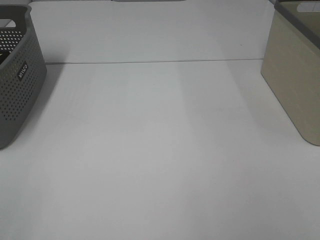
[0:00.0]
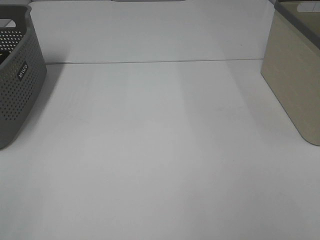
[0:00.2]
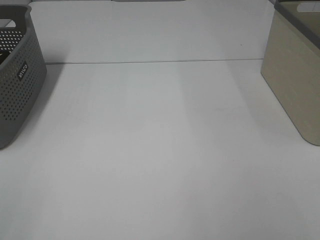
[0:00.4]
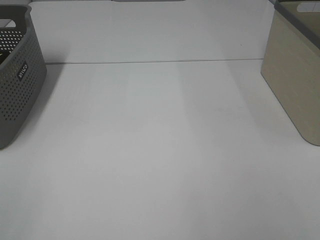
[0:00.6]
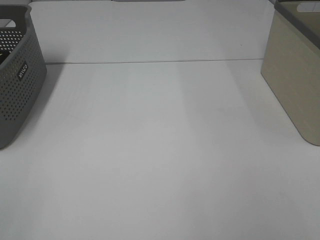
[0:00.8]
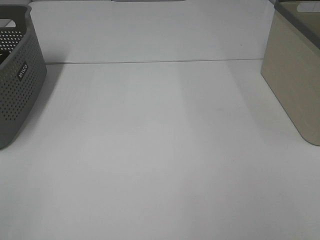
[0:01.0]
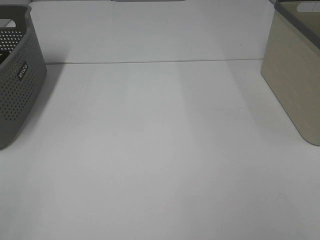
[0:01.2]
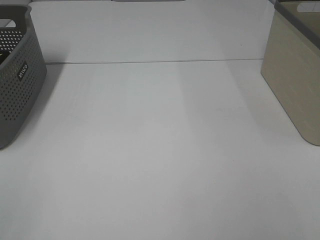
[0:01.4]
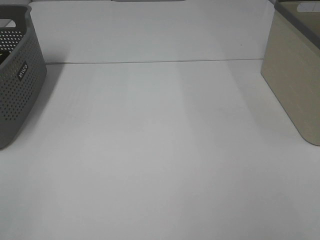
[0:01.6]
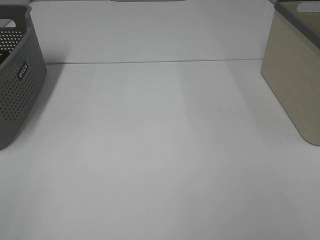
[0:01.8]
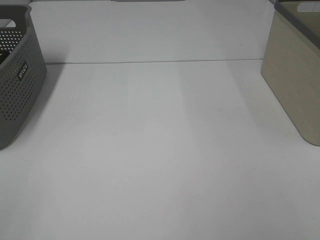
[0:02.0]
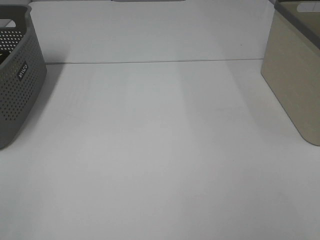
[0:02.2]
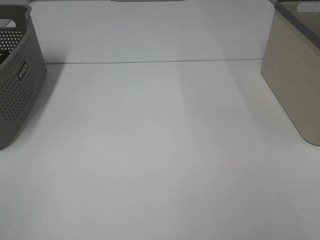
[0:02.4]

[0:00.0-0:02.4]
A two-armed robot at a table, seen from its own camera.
0:01.2 to 0:02.4: Both grippers stay about where they are.

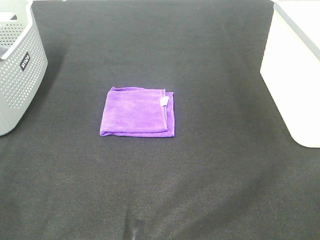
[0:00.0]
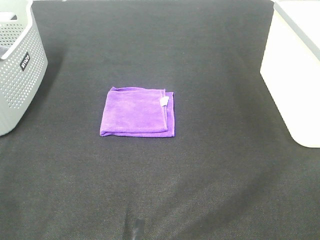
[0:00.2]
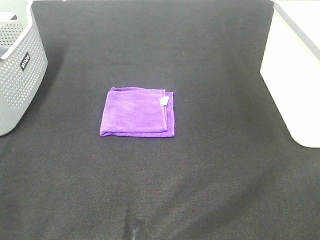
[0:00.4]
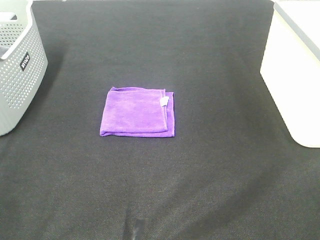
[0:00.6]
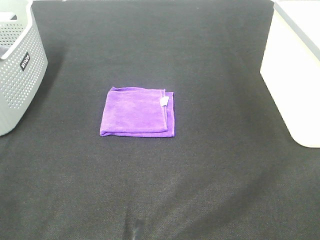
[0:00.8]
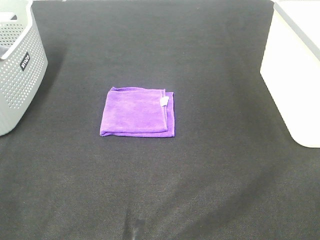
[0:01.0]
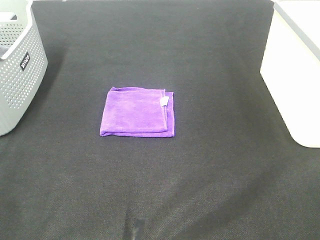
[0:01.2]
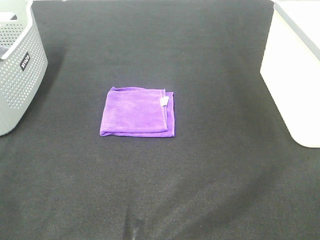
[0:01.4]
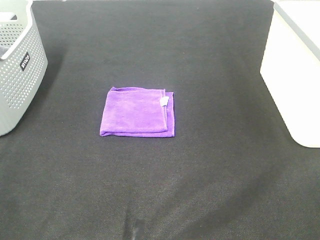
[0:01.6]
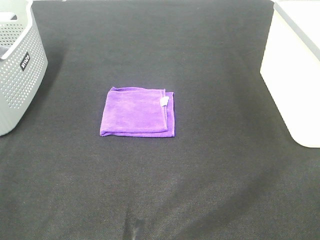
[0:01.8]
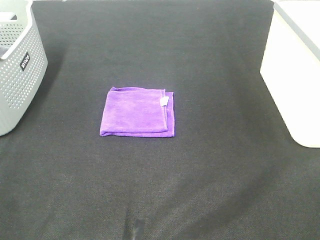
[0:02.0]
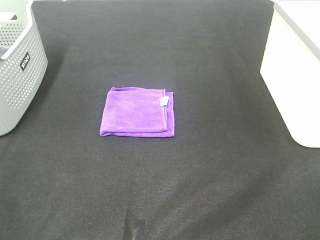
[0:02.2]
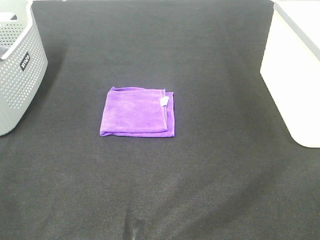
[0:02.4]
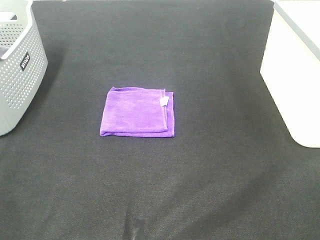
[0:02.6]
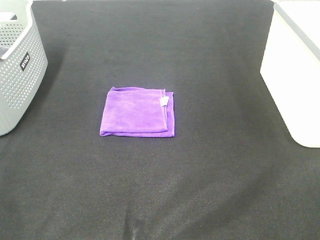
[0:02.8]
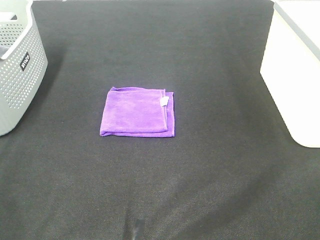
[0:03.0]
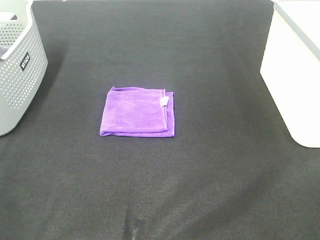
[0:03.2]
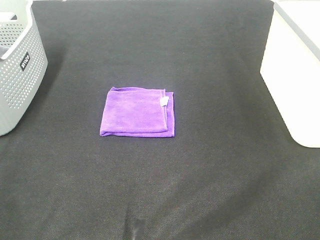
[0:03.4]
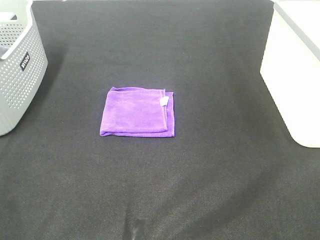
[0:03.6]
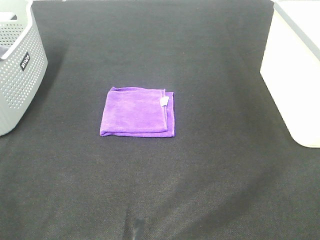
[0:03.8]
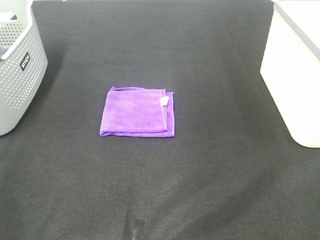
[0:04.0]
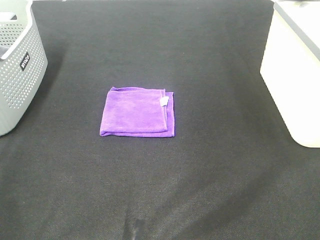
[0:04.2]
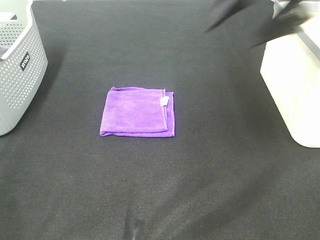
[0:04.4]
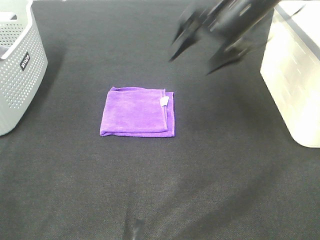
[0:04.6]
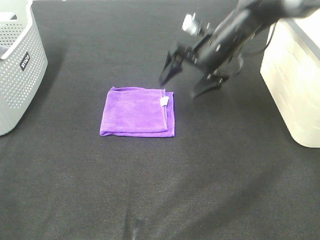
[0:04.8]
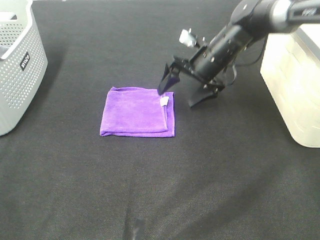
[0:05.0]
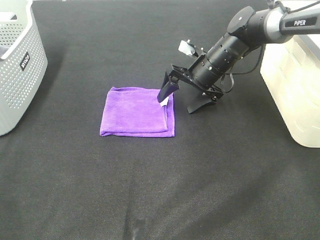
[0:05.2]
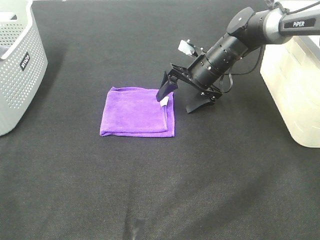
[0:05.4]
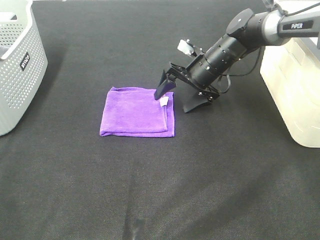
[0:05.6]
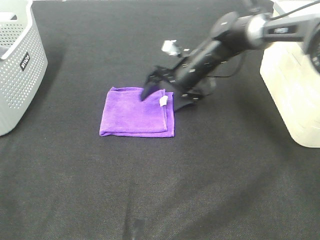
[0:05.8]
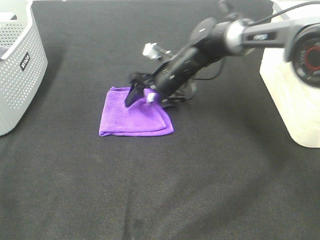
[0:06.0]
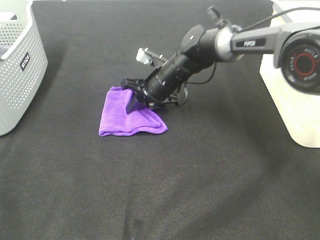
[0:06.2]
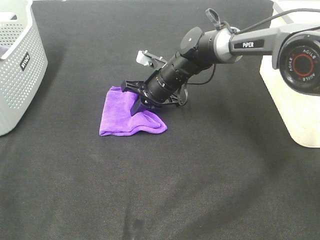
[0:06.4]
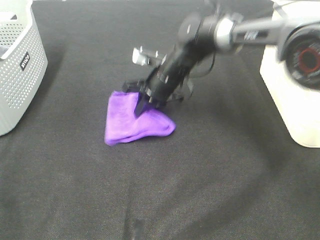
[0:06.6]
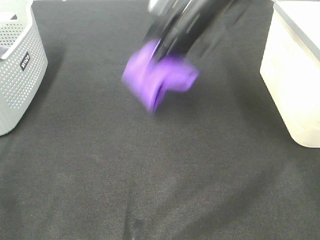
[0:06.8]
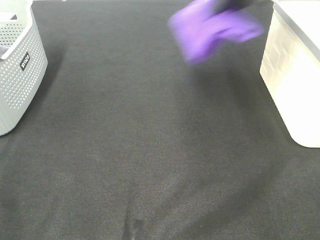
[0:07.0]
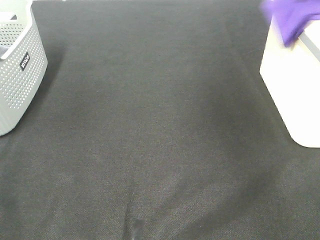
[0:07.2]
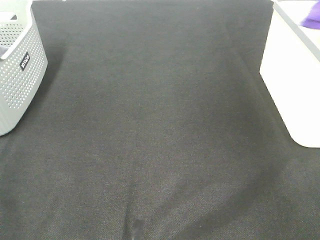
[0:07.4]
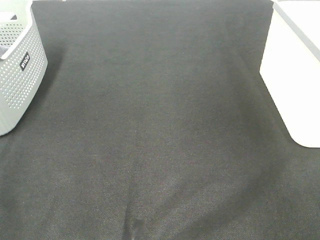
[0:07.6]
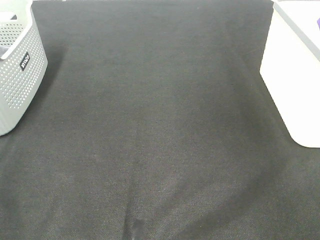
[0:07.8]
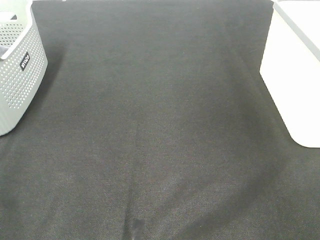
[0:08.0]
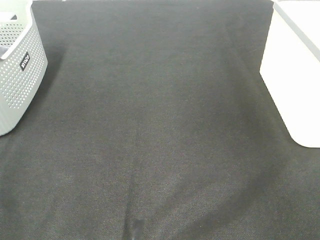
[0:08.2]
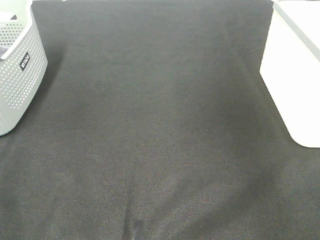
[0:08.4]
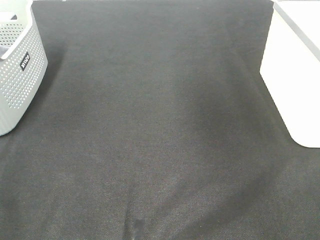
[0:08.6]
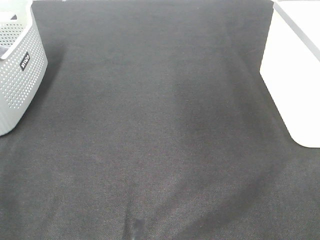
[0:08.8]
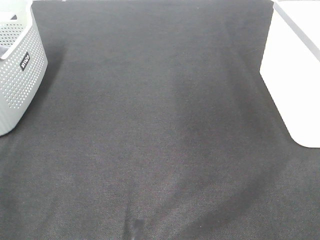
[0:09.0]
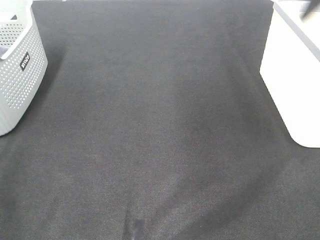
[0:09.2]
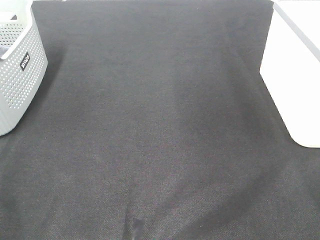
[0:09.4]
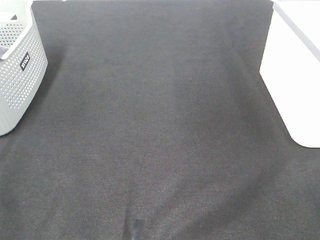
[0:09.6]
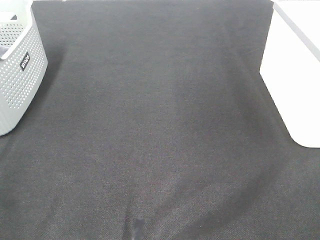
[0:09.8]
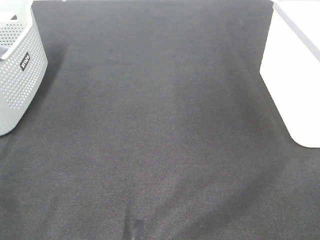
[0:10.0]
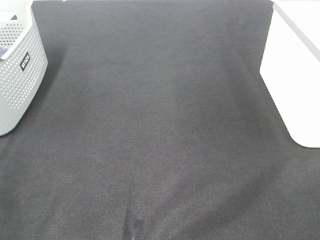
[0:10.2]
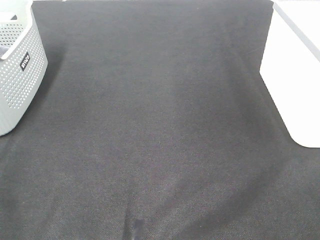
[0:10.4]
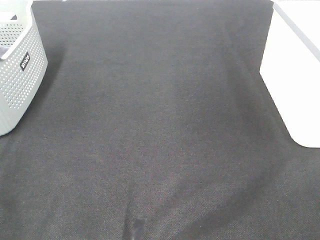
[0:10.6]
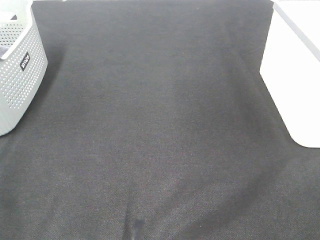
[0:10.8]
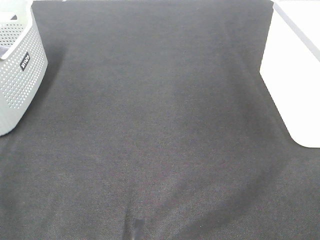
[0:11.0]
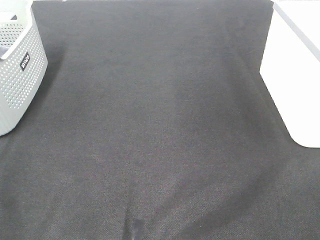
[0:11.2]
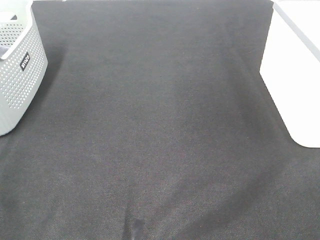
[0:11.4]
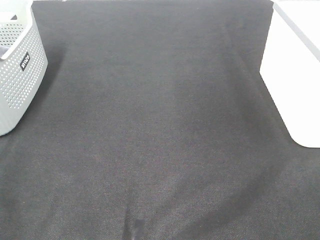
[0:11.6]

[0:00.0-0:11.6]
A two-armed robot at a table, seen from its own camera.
Step, 0:00.0 to 0:06.2: Right hand: grab the folded purple towel.
Step, 0:06.4 to 0:08.0: Right hand: place the purple towel in right basket.
0:00.0 to 0:02.8: Neither gripper changes place.
0:02.8 to 0:04.4: The right gripper moves forward, some 35 cm.
0:04.4 to 0:05.8: The right gripper is displaced downward, to the left and forward by roughly 25 cm.
0:05.8 to 0:07.2: The right gripper travels upward and to the right by roughly 35 cm, and closes.
0:07.2 to 0:08.8: The right gripper travels to the left and upward by some 10 cm, and opens up.

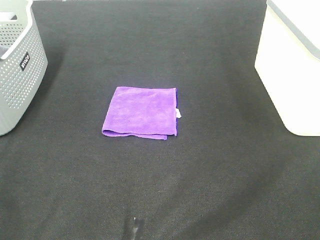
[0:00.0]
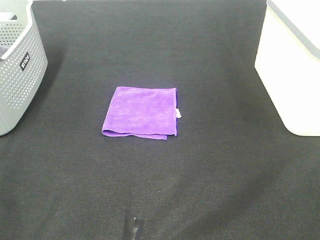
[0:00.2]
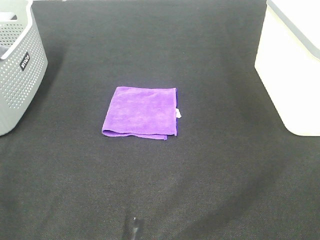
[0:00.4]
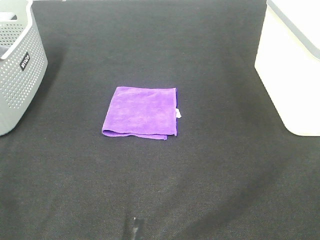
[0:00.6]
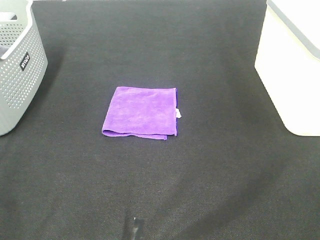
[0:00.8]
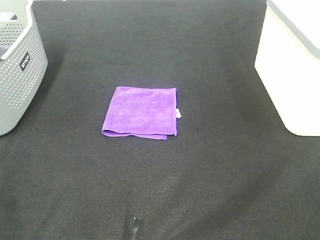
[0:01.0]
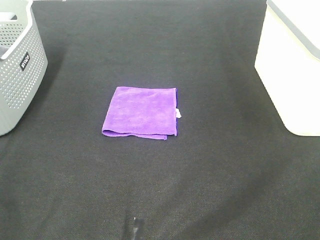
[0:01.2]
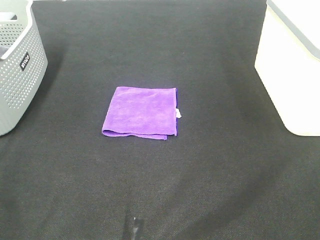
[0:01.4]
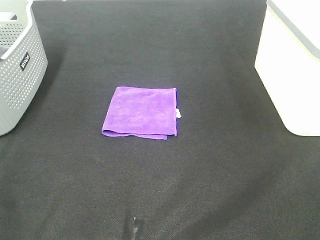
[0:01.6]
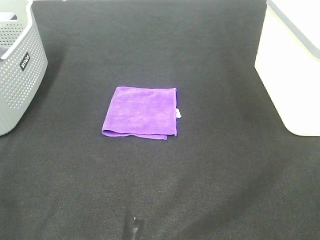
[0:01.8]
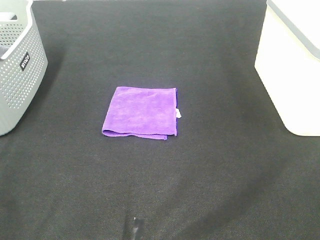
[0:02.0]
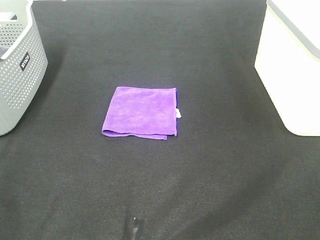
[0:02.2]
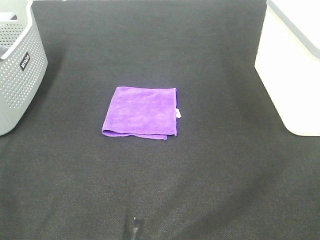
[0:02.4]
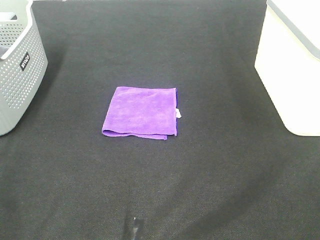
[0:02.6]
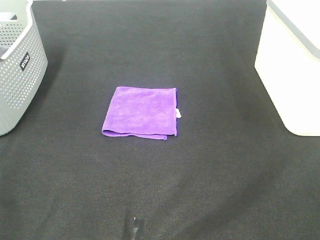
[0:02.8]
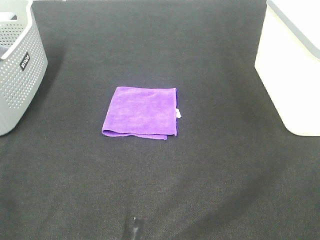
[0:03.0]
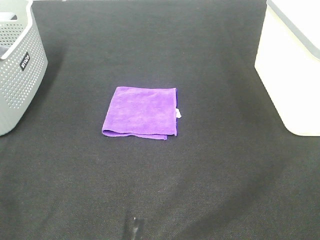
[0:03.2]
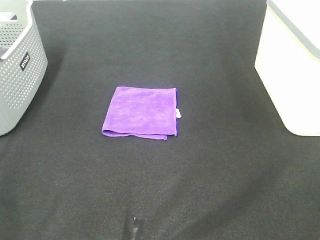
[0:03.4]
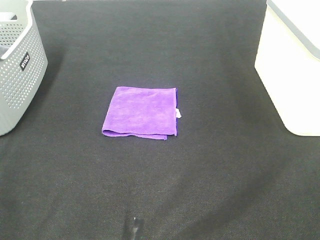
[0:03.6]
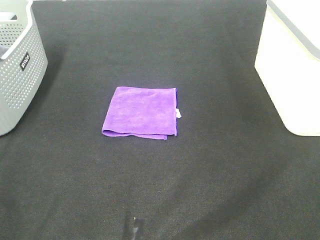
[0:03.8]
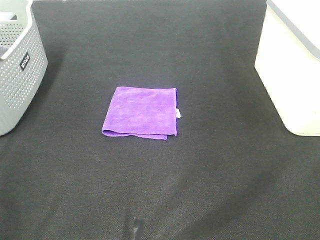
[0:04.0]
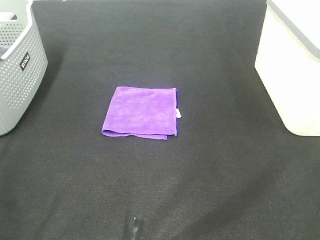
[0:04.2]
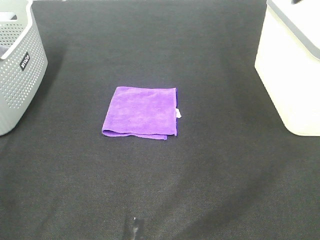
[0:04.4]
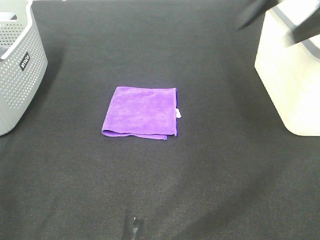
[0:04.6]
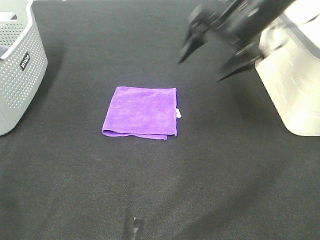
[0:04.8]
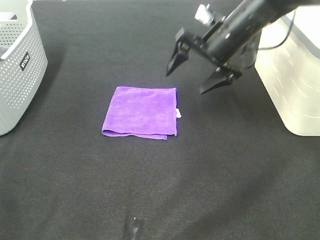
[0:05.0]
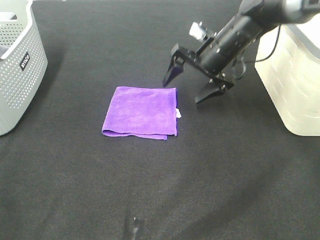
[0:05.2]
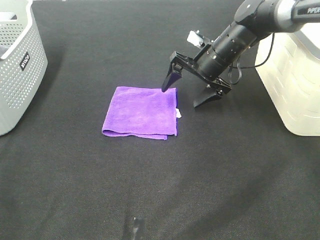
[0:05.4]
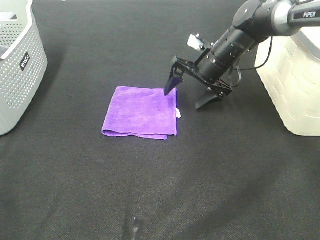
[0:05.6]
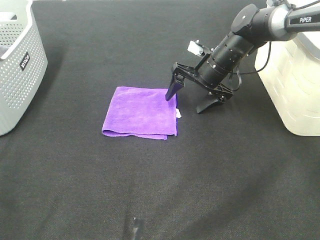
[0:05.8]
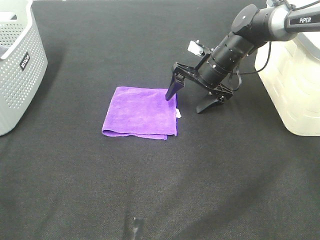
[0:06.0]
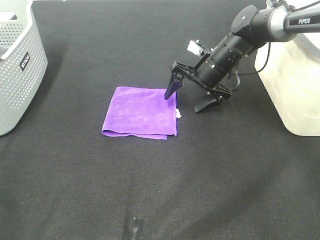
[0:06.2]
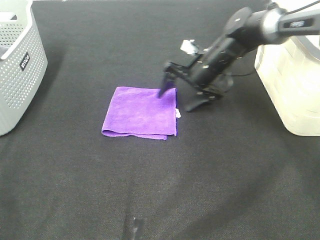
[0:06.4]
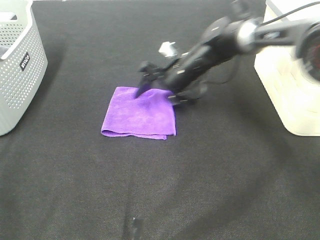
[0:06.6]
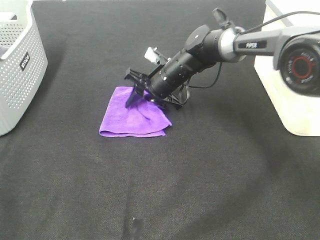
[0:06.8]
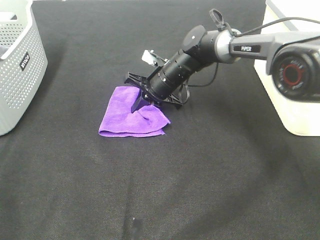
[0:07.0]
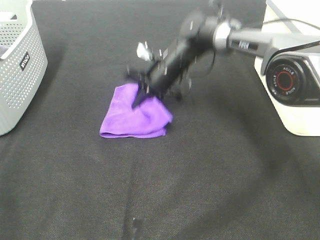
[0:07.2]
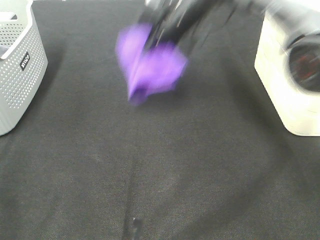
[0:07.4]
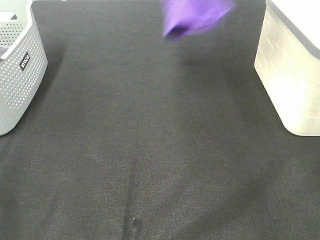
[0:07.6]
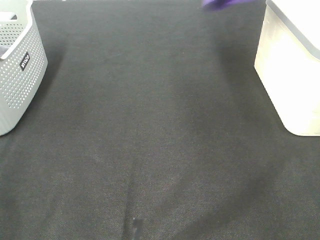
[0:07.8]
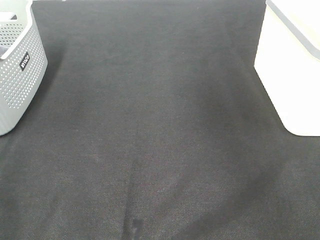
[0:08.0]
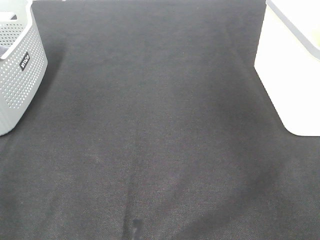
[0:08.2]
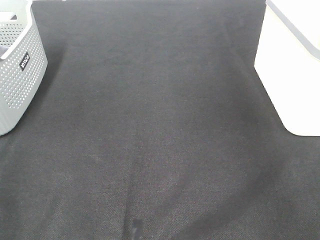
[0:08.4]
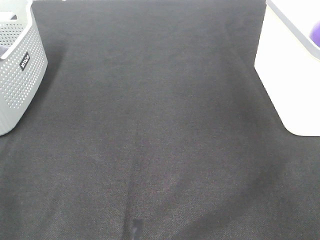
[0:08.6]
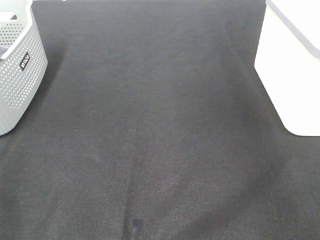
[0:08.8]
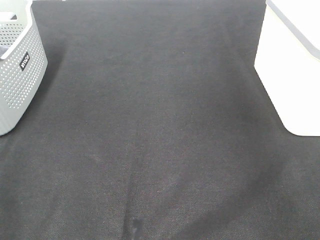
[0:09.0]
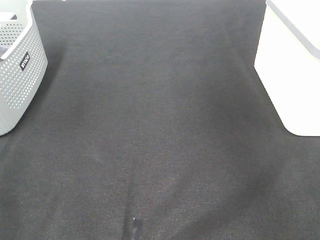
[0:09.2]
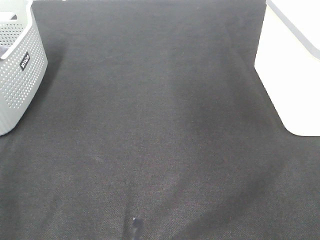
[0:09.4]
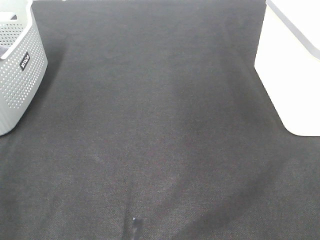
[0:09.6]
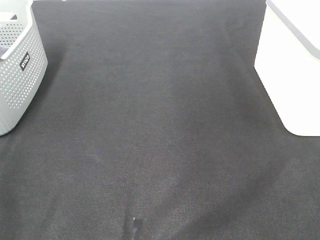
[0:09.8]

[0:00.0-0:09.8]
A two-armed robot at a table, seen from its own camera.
Step, 0:00.0 to 0:07.0: Right hand: grab the folded purple towel.
Step, 0:07.2 to 0:08.6: Right hand: place the purple towel in right basket.
0:00.0 to 0:02.8: Both grippers stay about where they are.
0:04.2 to 0:05.6: The right gripper shifts roughly 40 cm downward, forward and to the left.
0:05.6 to 0:07.0: The right gripper moves to the left, approximately 10 cm, and closes.
0:07.0 to 0:08.4: The right gripper travels to the right and upward by roughly 50 cm.
